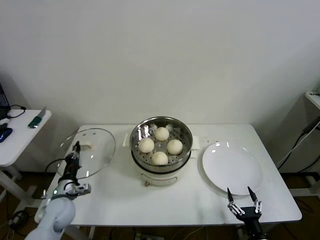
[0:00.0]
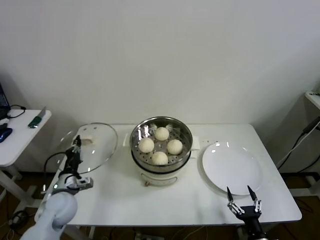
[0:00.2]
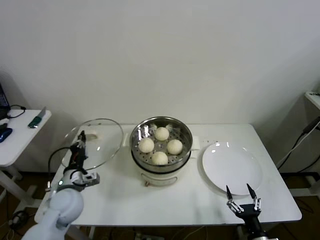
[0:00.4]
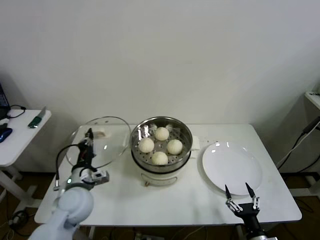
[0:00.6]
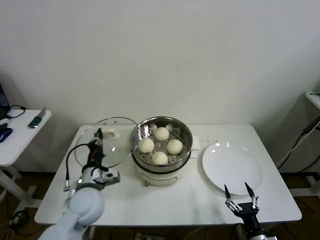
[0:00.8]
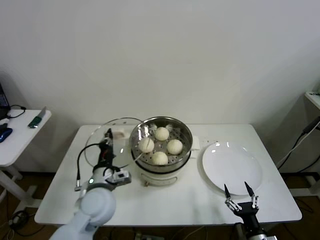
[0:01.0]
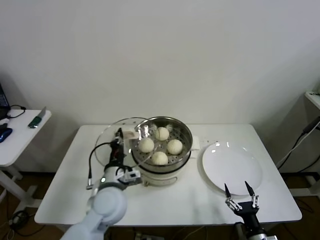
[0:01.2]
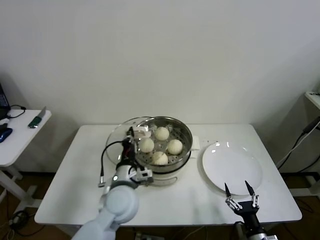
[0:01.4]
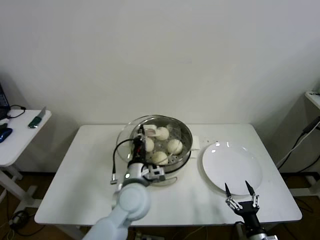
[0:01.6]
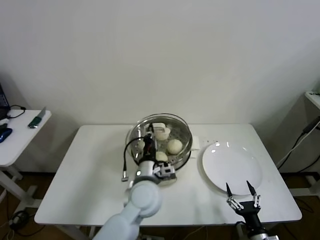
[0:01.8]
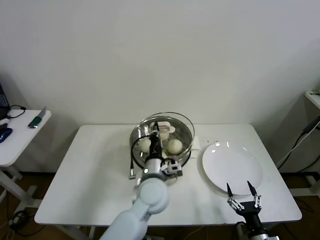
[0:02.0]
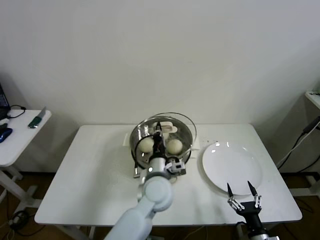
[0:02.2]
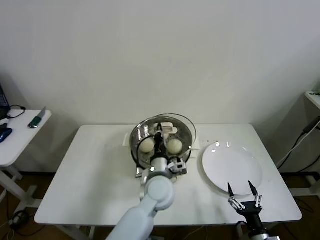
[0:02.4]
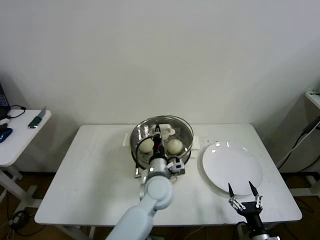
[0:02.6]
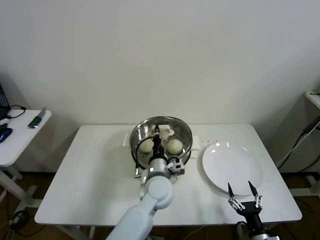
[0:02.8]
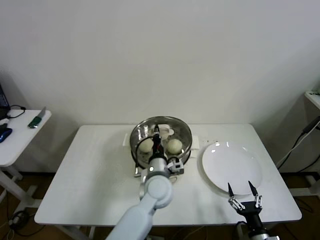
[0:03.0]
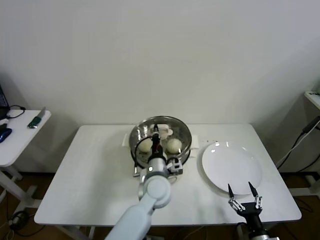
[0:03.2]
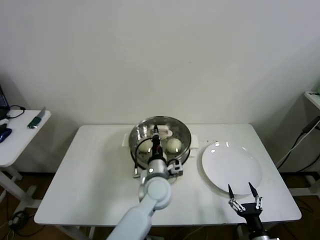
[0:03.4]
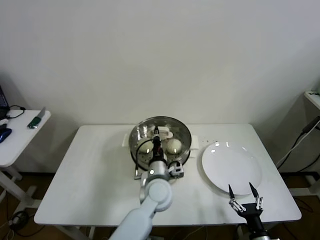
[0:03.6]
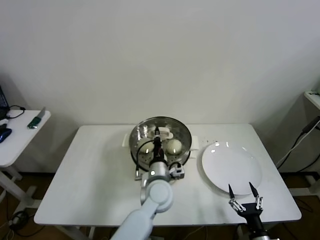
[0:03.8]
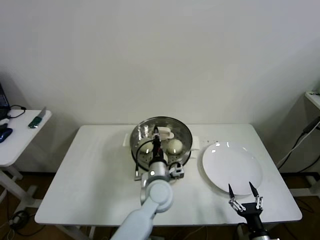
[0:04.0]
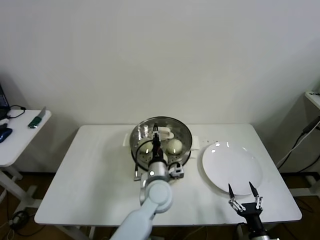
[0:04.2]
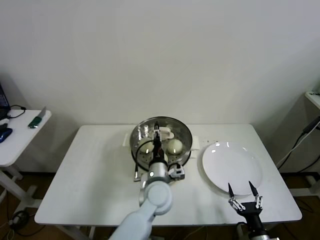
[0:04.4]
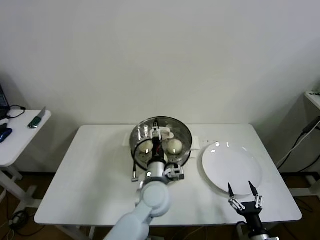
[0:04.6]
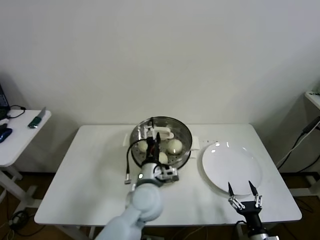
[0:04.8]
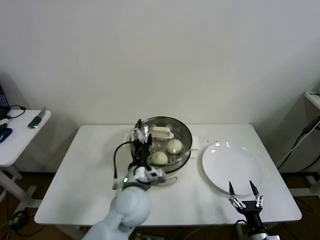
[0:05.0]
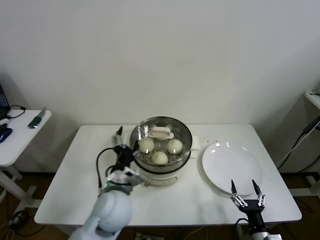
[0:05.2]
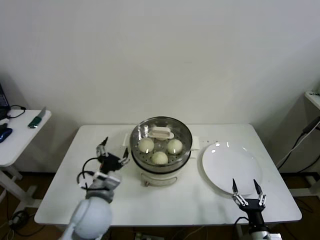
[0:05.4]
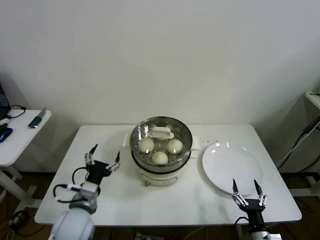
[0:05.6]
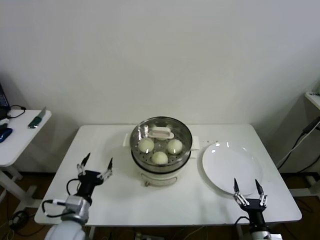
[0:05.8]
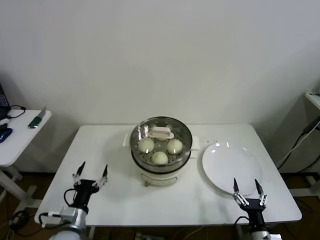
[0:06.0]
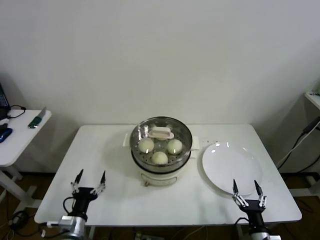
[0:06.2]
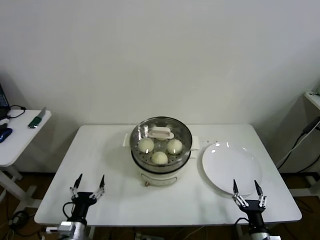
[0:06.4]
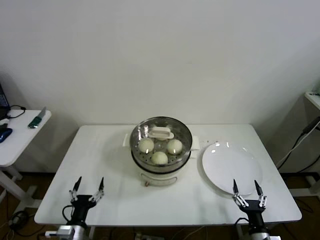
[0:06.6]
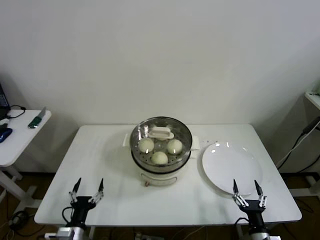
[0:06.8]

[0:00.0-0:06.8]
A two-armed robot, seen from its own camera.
Step, 0:00.0 to 0:03.8: Place the pot lid on the steamer with left gripper.
0:00.0 to 0:01.4: The left gripper heads to the right and upward, covering some 25 cm.
0:01.4 to 0:02.8: The left gripper goes about 10 cm to the right.
0:02.8 to 0:04.0: There are only small adjustments of the grippers.
0:04.0 to 0:05.4: The left gripper goes approximately 20 cm to the left and backward, and opens up.
0:05.4 to 0:06.8: The left gripper travels downward, to the left and backward by roughly 25 cm.
